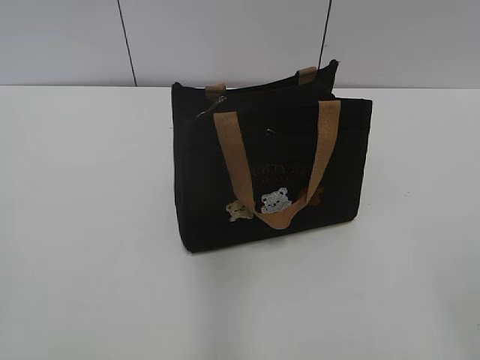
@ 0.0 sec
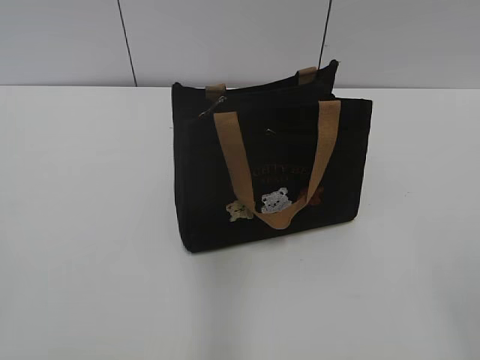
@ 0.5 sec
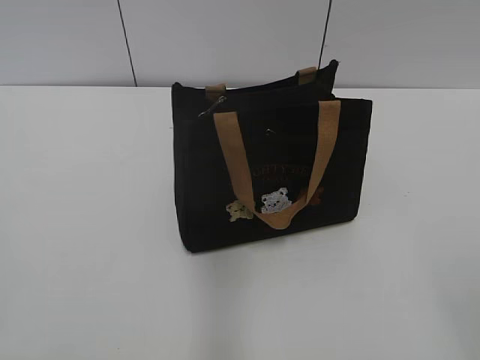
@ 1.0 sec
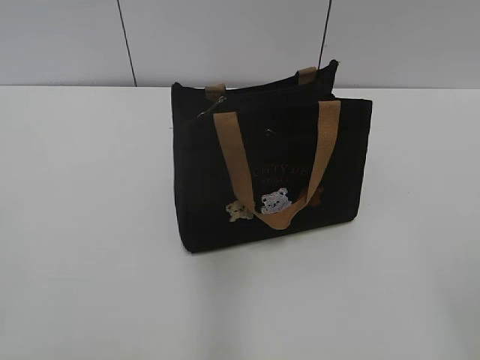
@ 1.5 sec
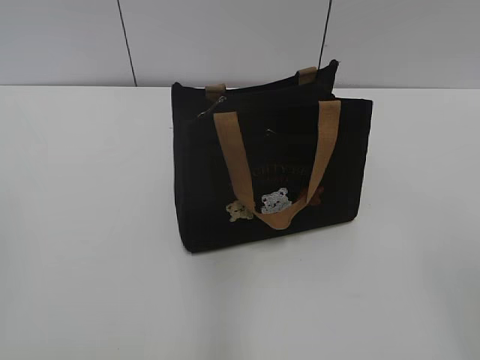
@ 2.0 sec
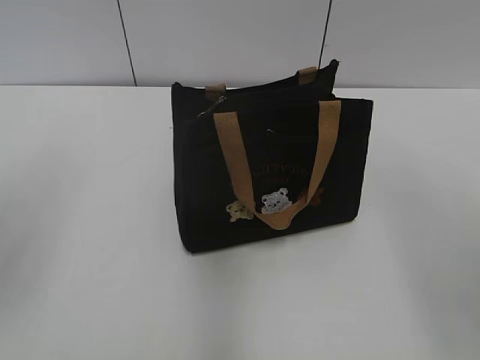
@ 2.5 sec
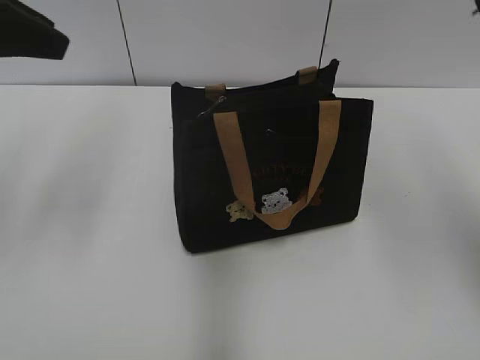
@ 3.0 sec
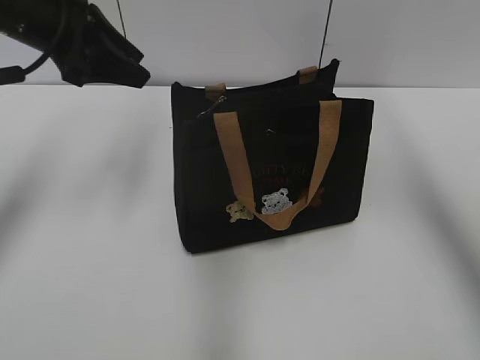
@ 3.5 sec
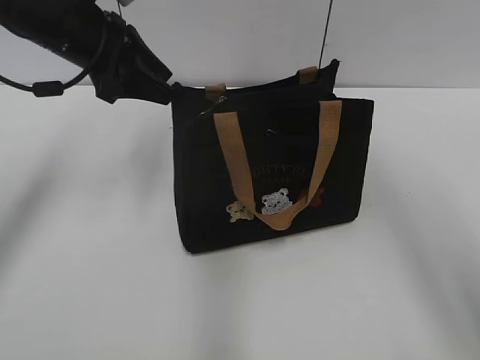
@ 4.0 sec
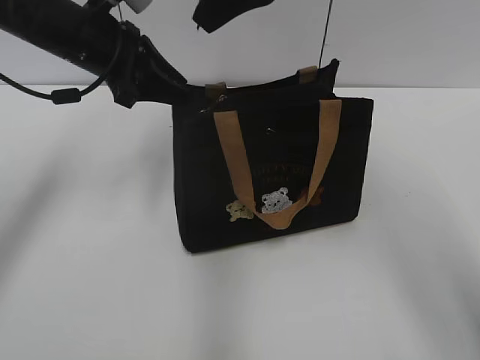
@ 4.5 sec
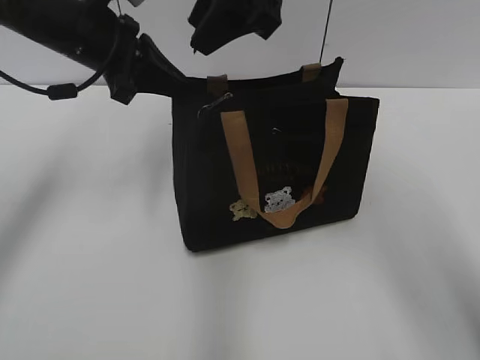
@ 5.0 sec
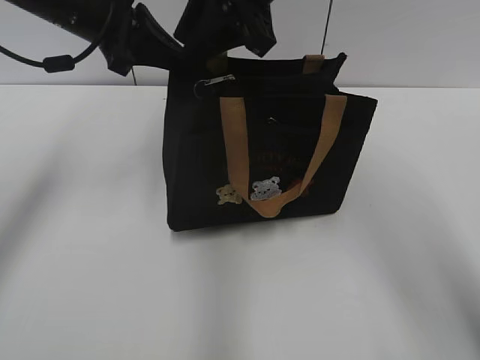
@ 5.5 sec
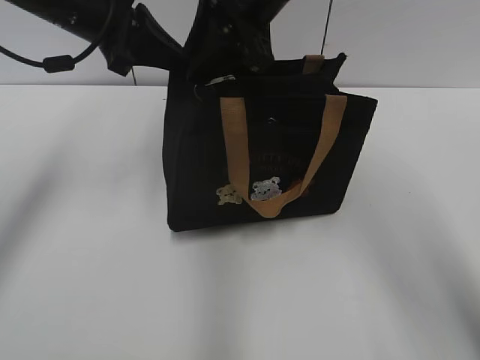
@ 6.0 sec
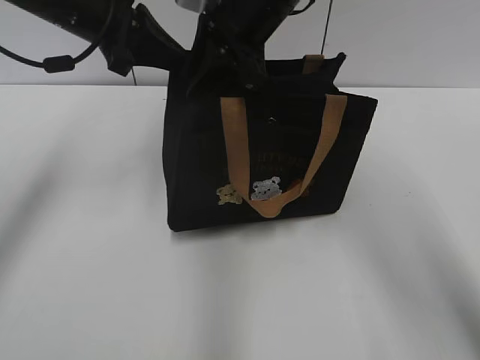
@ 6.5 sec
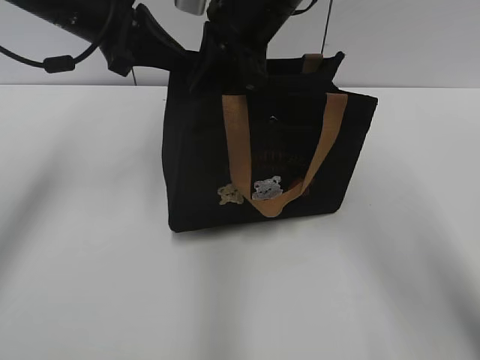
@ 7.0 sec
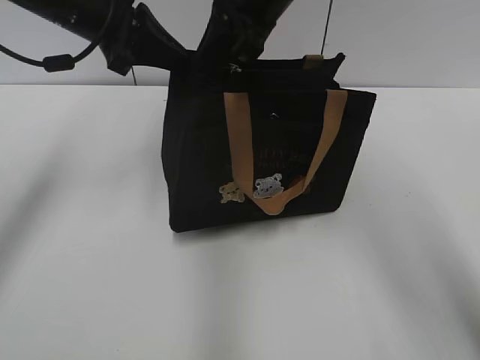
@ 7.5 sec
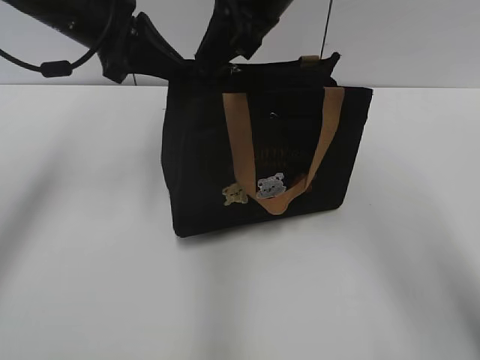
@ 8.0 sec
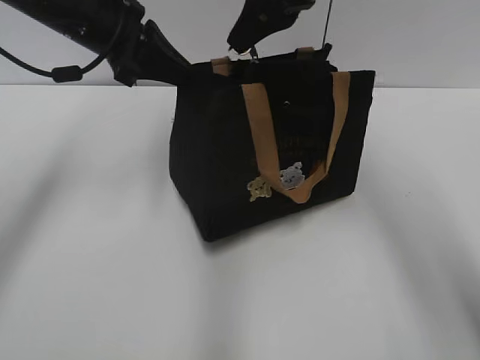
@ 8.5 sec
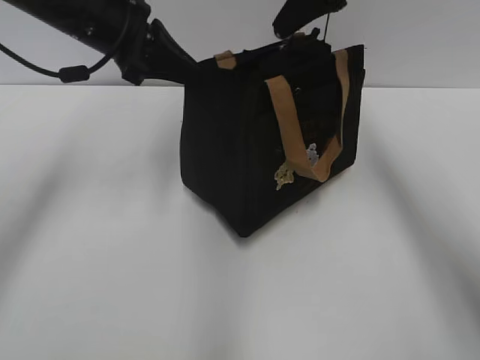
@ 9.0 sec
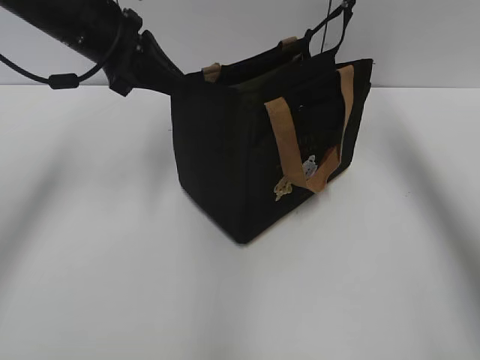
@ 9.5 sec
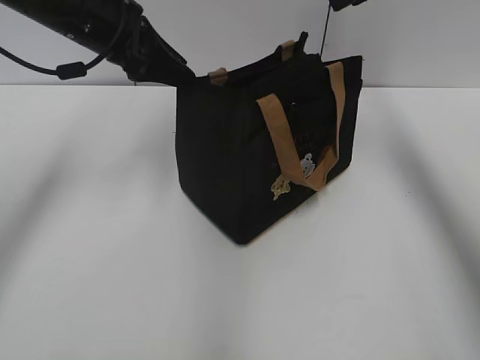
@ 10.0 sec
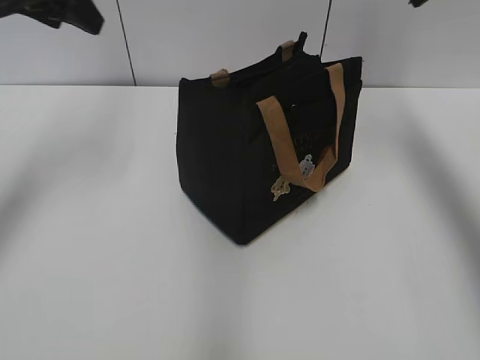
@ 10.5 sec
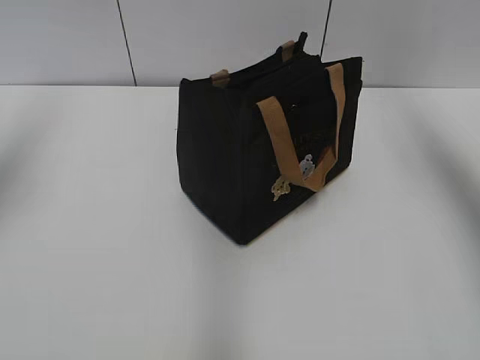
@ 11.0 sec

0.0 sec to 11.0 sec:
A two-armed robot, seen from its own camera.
Step, 0.0 sec to 9.5 sec: Pull open the zipper with your right hand.
2.0 sec to 3.5 sec: The left gripper shifts some 35 cm forward. The right gripper heads forward and upward, covering some 35 cm.
3.5 sec to 5.5 sec: The left gripper ends up approximately 5 cm from where it was, and closes up, while the right gripper moves to the left and downward, roughly 20 cm.
5.5 sec to 7.5 sec: The right gripper closes up.
7.5 sec to 9.0 sec: The right gripper shifts roughly 10 cm to the right.
9.0 sec to 11.0 sec: The right gripper shifts roughly 20 cm to the right and upward, and opens up, while the left gripper heads to the left and upward, covering approximately 20 cm, and opens up.

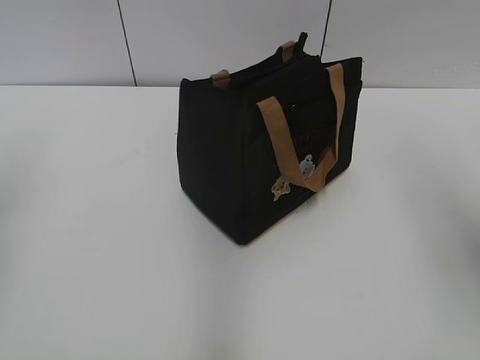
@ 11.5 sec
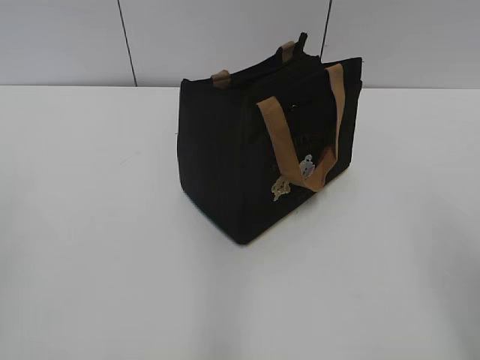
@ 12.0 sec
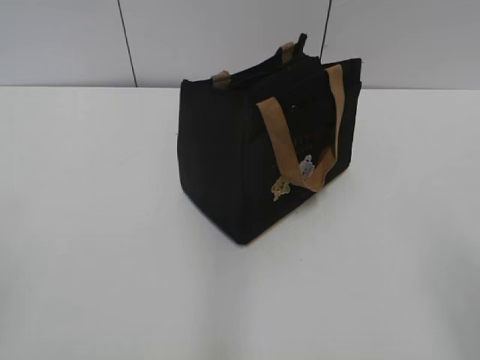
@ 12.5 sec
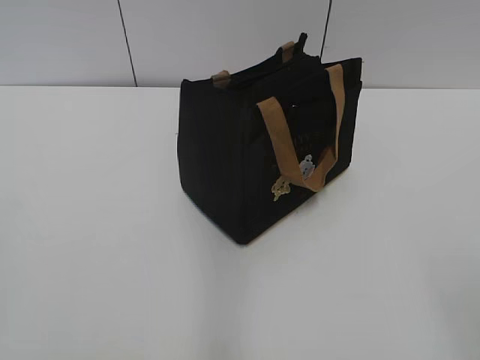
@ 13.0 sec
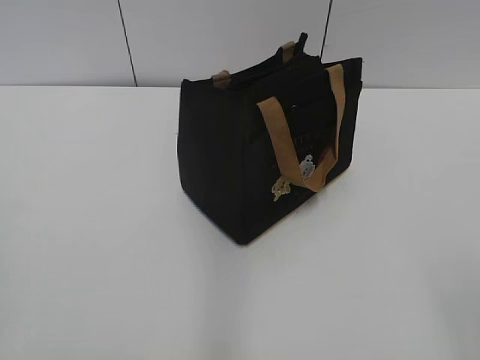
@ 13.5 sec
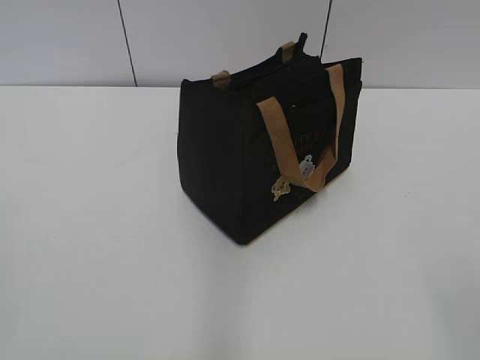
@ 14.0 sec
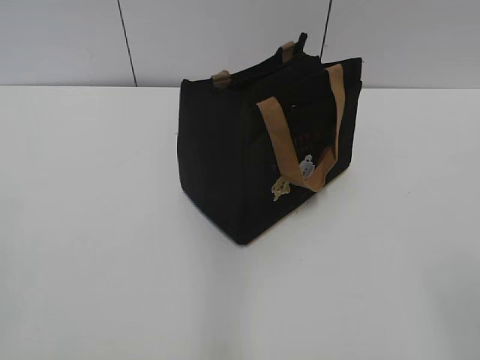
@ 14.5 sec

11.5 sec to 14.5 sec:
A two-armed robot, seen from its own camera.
11.5 sec to 13.0 sec: The right gripper shifts about 20 cm backward.

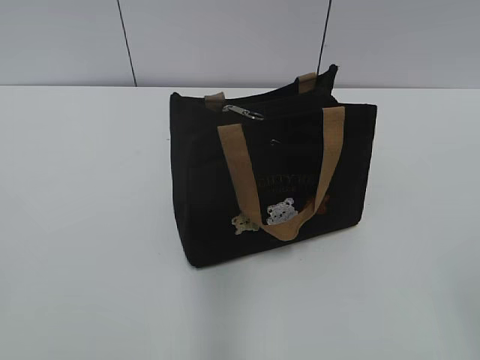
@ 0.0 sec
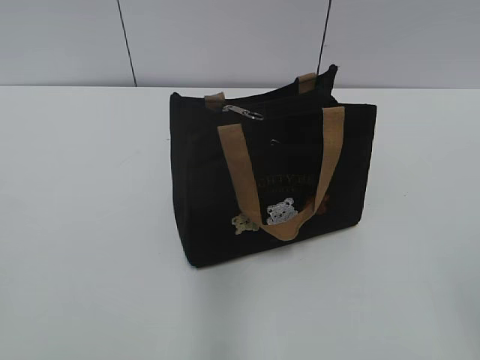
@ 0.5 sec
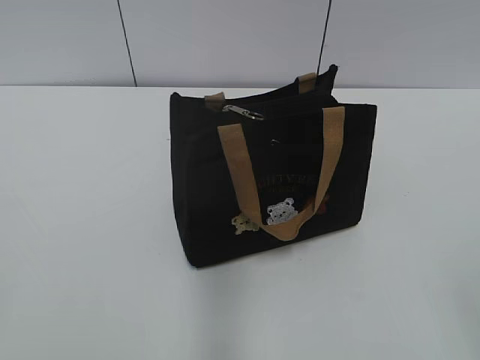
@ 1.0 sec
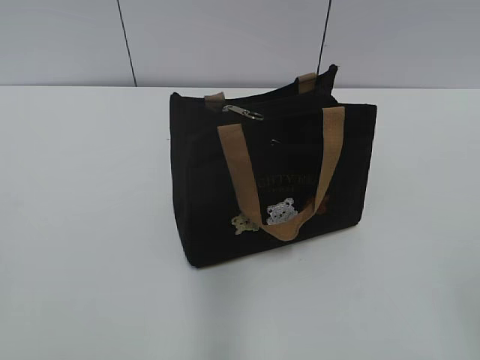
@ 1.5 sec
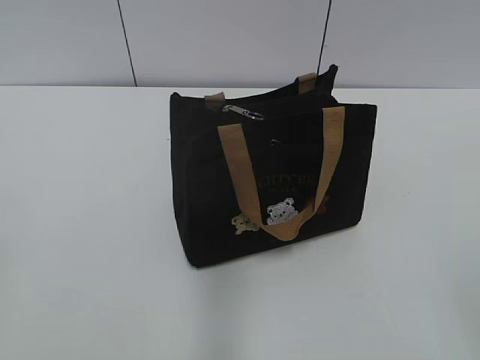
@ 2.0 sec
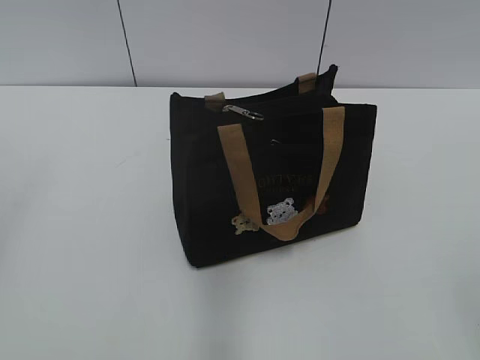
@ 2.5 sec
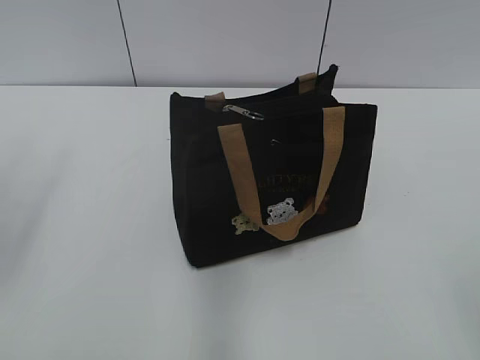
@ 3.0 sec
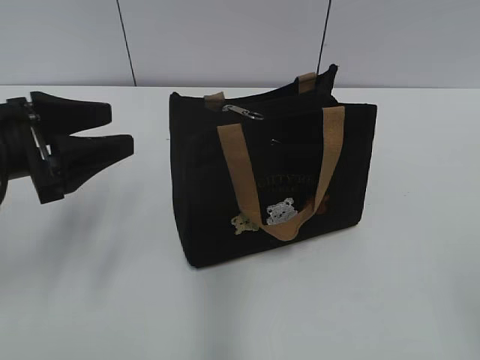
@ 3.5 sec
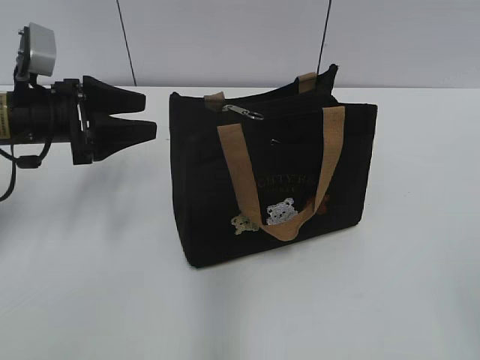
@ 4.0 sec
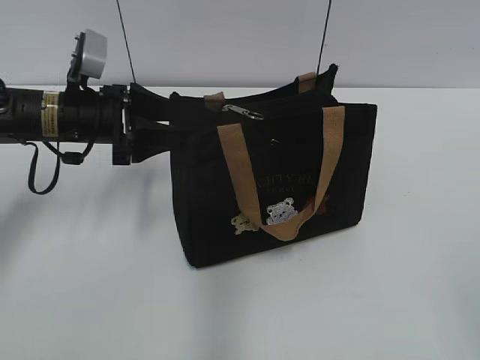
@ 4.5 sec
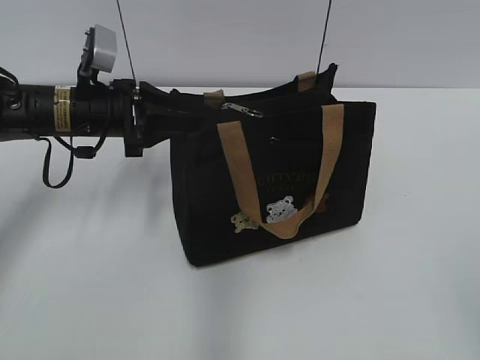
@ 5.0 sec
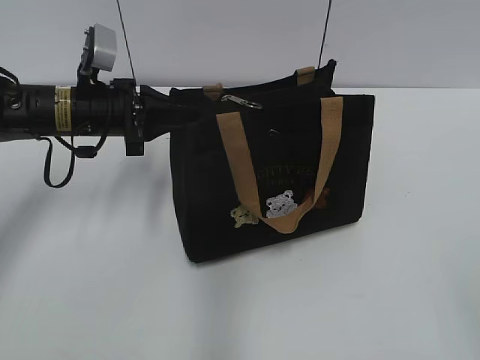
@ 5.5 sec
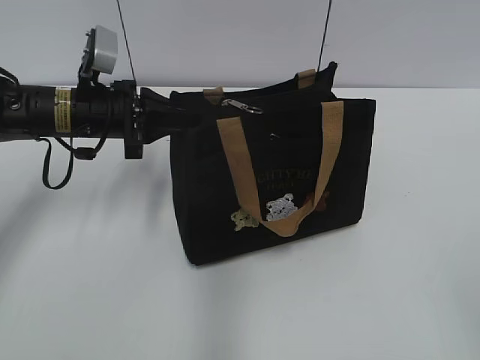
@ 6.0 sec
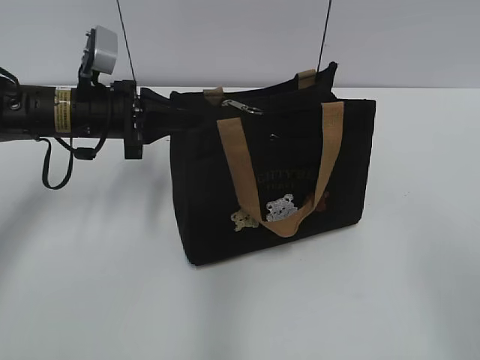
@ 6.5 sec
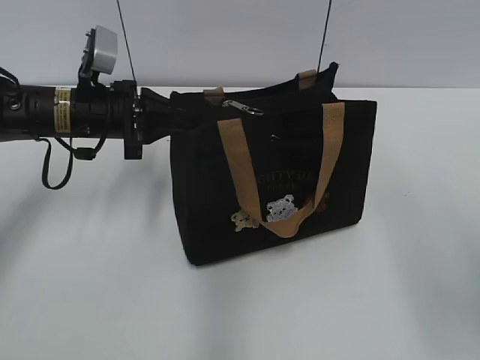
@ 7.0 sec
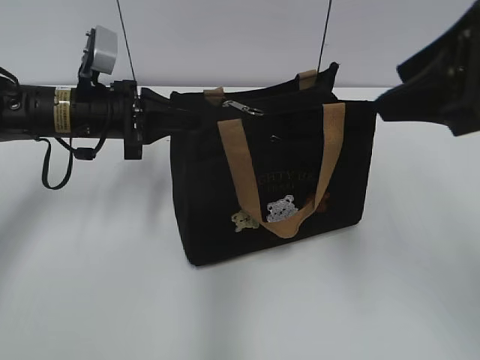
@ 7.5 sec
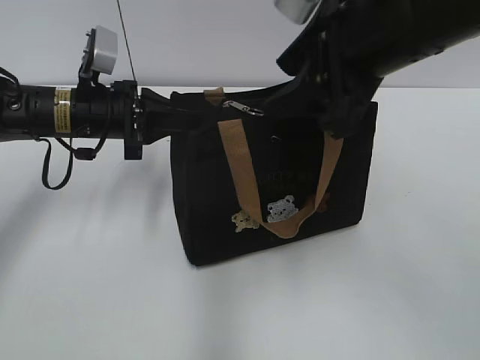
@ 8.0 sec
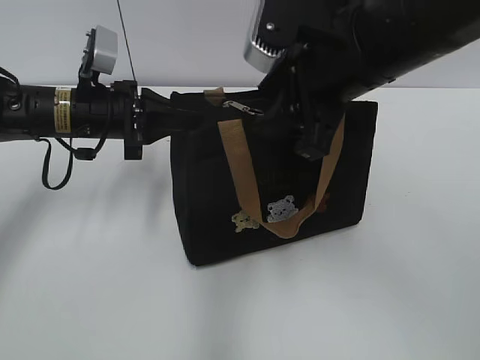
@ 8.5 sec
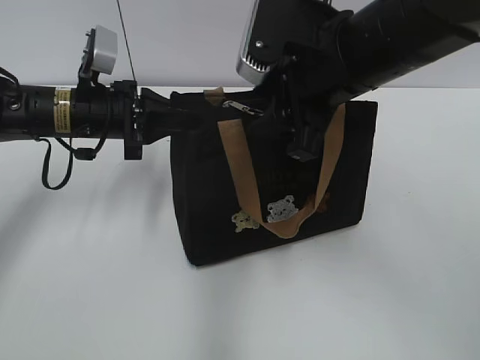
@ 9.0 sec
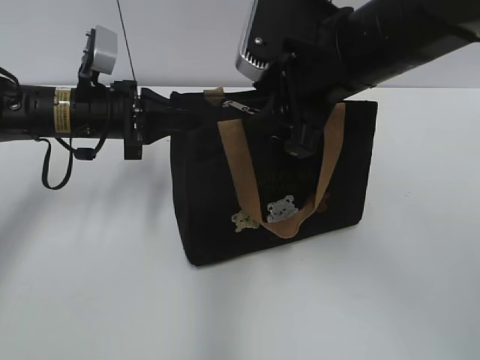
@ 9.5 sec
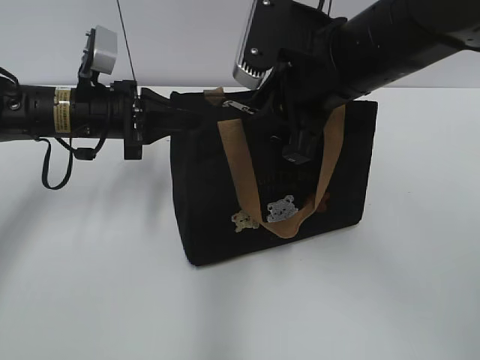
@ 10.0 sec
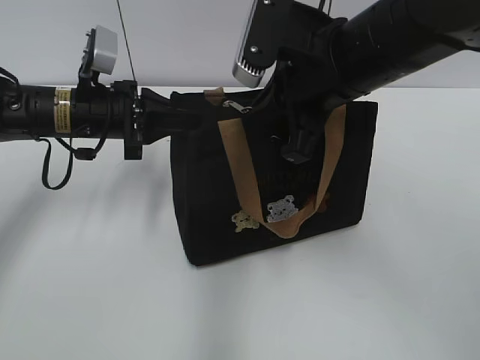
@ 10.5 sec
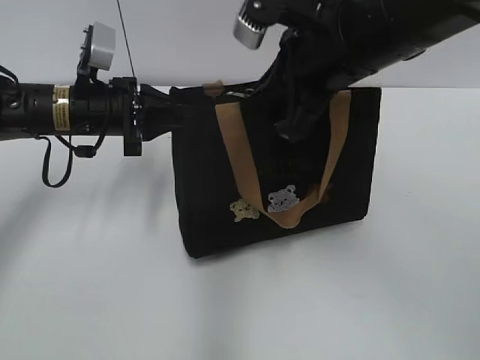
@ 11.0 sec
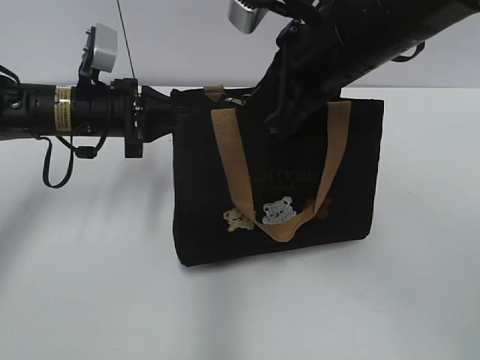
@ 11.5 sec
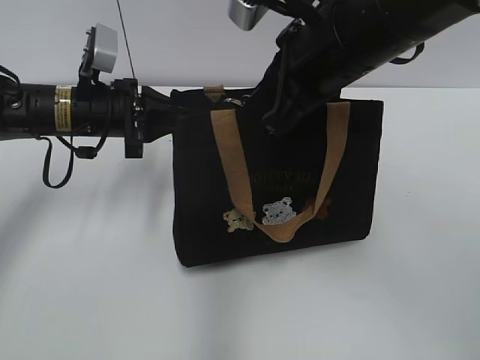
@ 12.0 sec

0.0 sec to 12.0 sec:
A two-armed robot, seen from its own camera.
2.0 sec to 4.0 sec: The left gripper travels forward by roughly 35 cm.
4.0 sec to 6.0 sec: The left gripper heads to the right, covering roughly 5 cm, and closes up.
6.0 sec to 8.0 sec: The right gripper moves forward and to the left, roughly 30 cm.
8.0 sec to 10.0 sec: The right gripper shifts about 5 cm downward.
10.0 sec to 12.0 sec: The right gripper closes.
